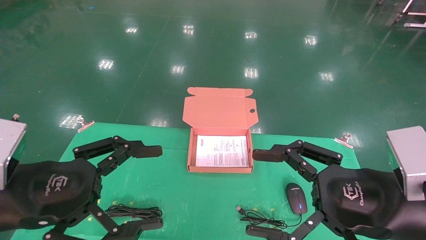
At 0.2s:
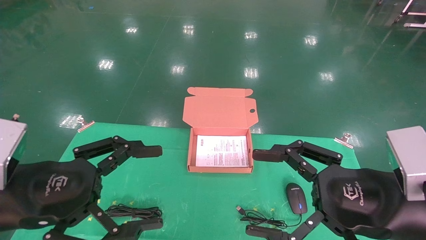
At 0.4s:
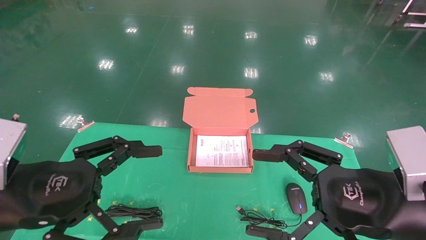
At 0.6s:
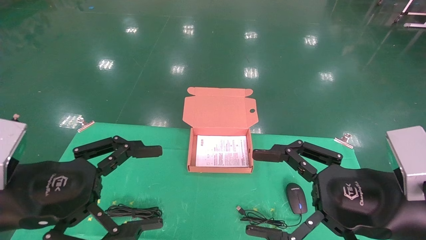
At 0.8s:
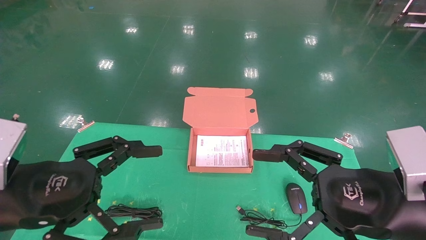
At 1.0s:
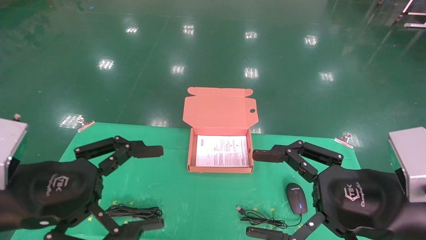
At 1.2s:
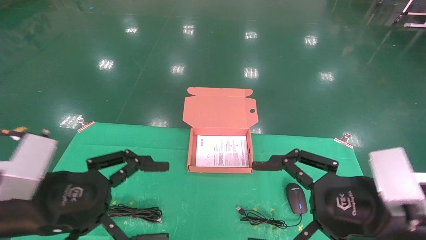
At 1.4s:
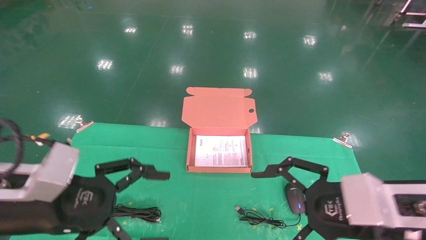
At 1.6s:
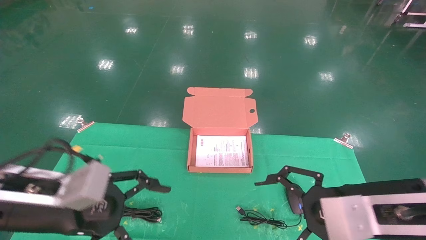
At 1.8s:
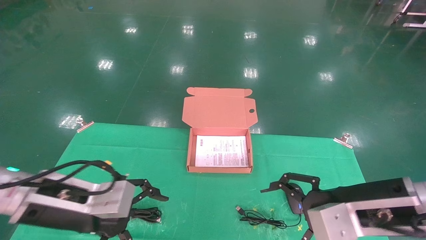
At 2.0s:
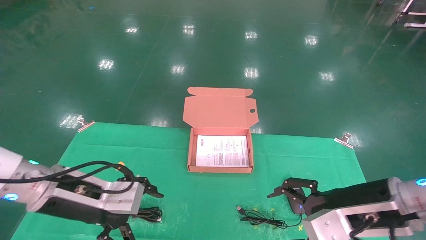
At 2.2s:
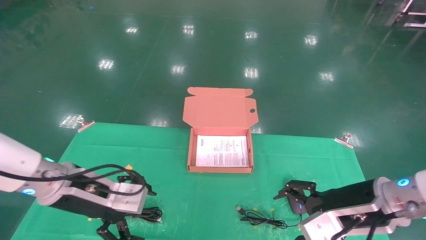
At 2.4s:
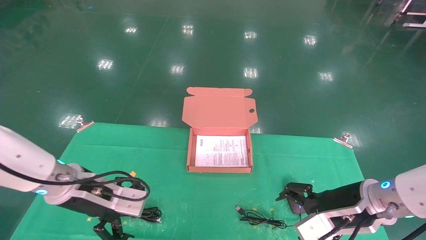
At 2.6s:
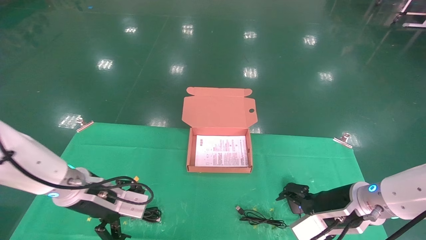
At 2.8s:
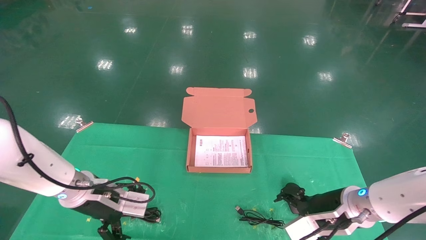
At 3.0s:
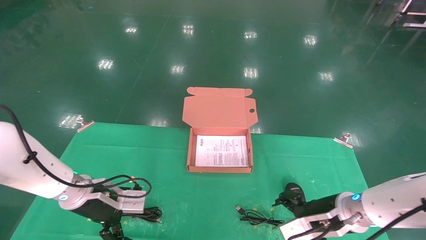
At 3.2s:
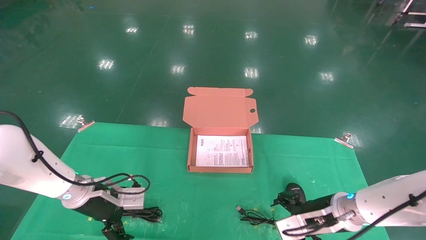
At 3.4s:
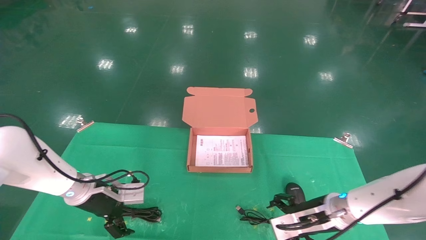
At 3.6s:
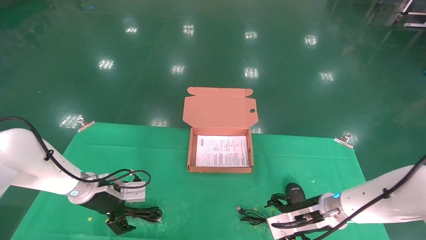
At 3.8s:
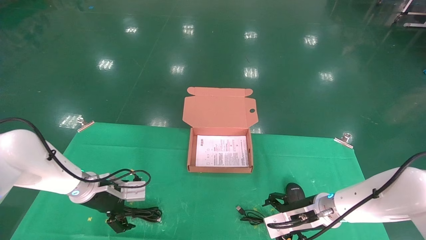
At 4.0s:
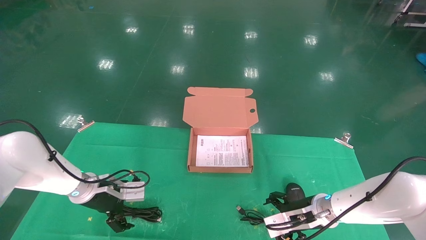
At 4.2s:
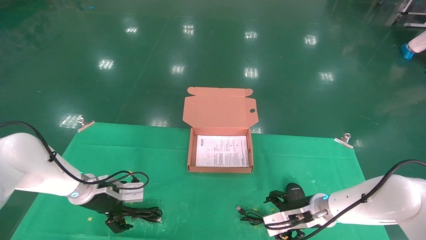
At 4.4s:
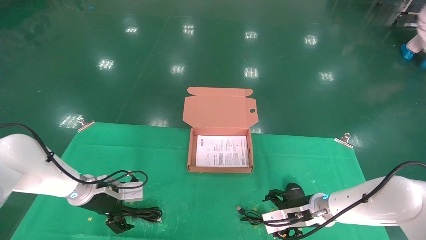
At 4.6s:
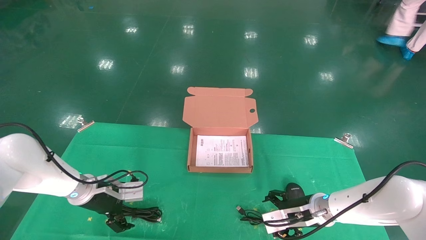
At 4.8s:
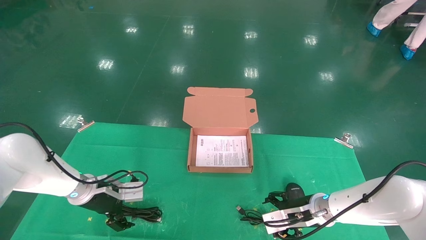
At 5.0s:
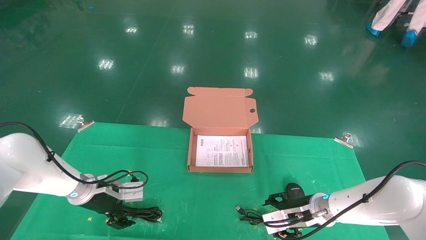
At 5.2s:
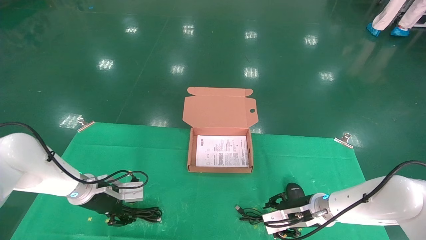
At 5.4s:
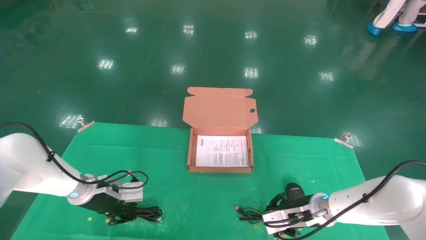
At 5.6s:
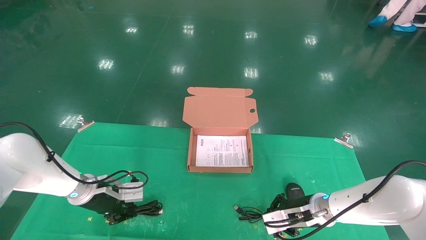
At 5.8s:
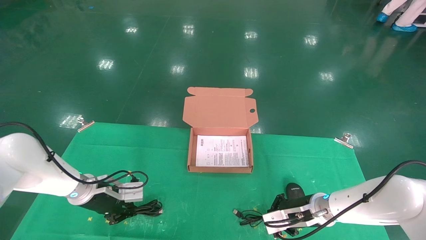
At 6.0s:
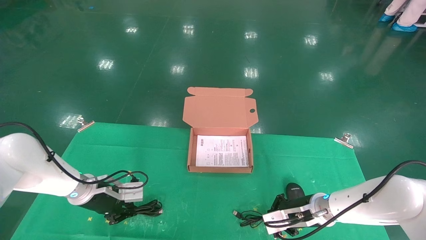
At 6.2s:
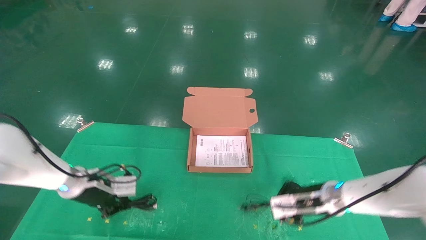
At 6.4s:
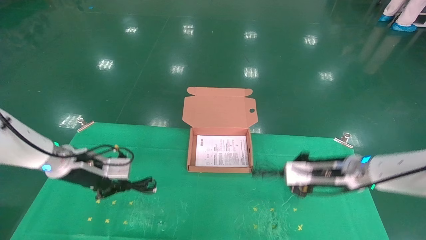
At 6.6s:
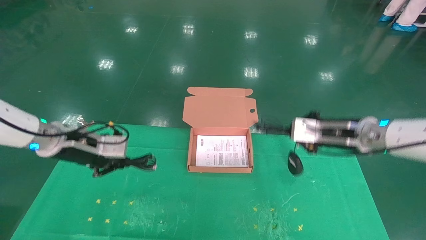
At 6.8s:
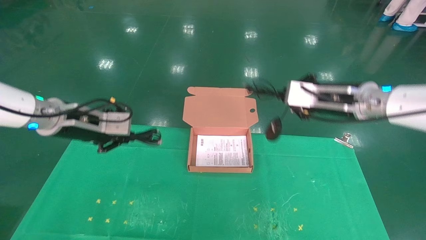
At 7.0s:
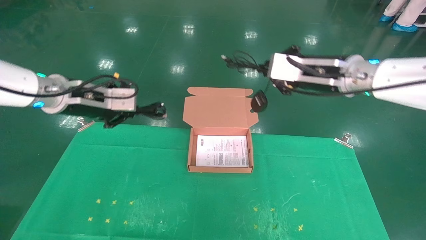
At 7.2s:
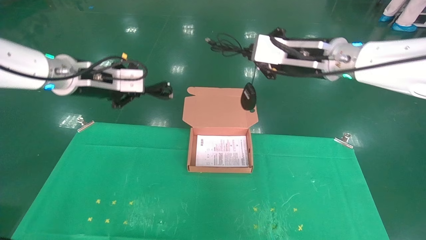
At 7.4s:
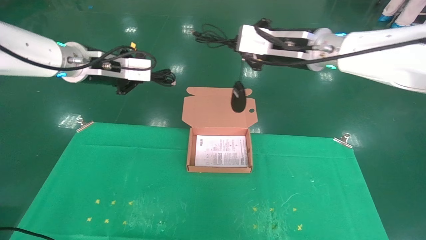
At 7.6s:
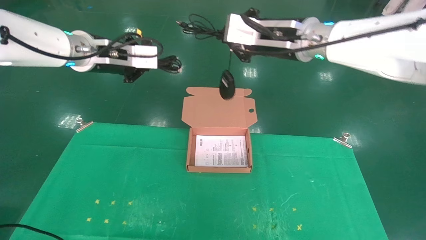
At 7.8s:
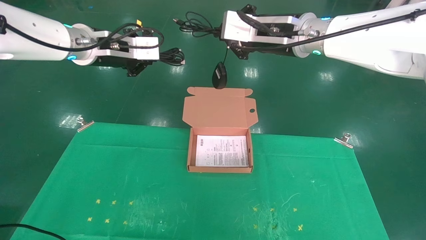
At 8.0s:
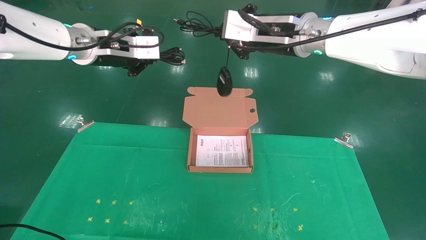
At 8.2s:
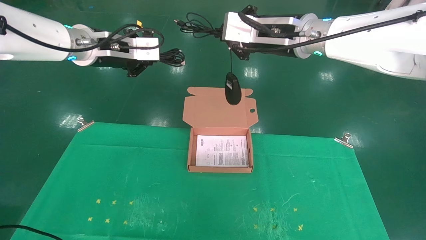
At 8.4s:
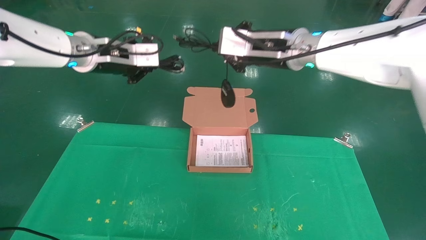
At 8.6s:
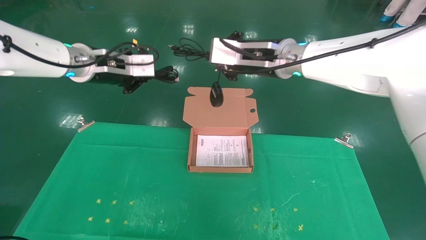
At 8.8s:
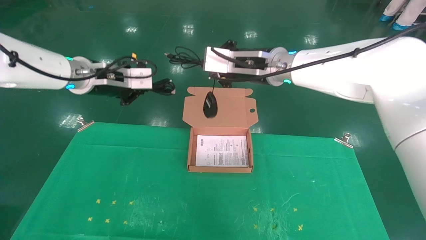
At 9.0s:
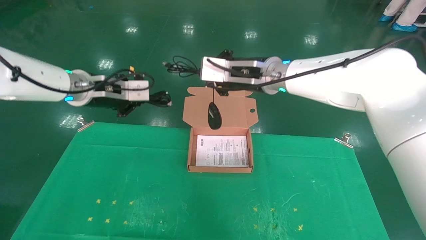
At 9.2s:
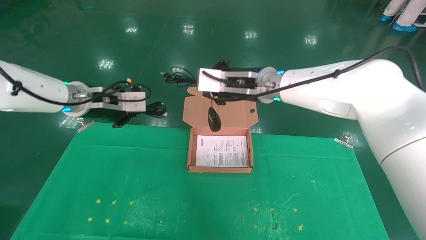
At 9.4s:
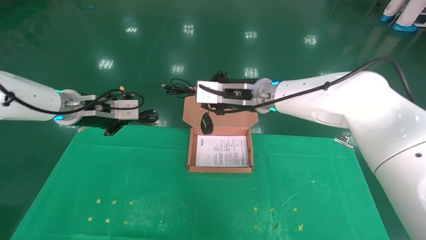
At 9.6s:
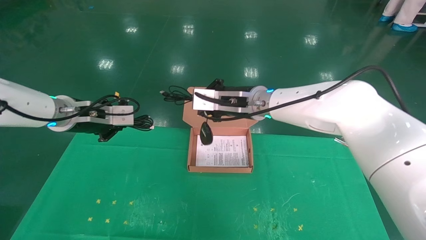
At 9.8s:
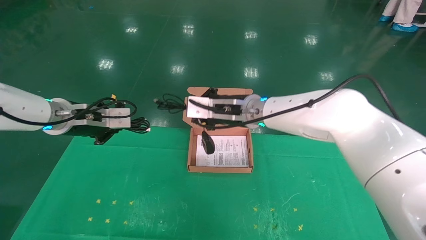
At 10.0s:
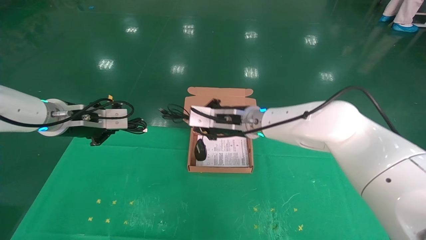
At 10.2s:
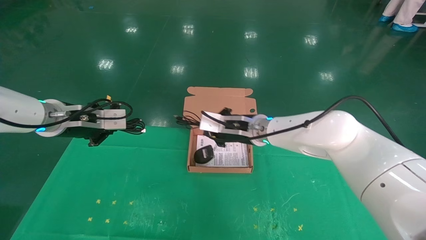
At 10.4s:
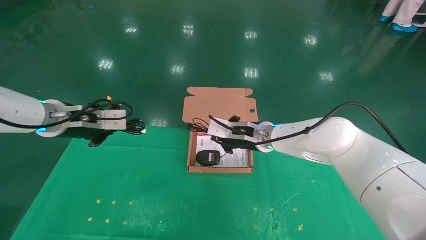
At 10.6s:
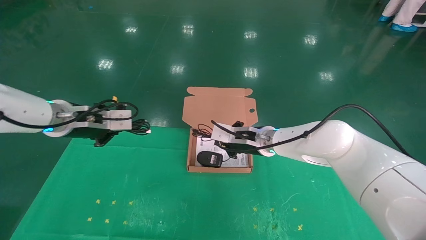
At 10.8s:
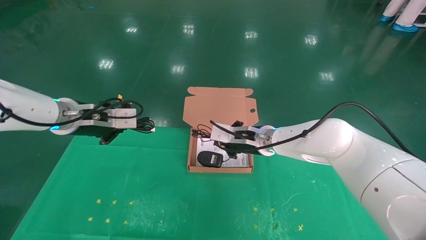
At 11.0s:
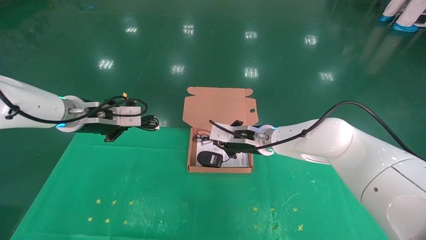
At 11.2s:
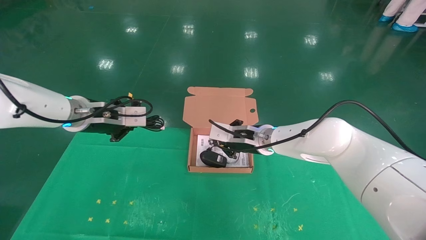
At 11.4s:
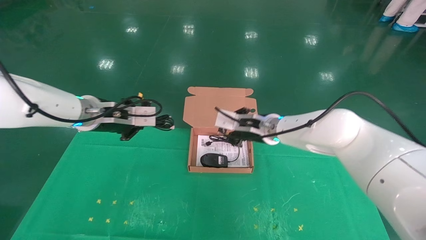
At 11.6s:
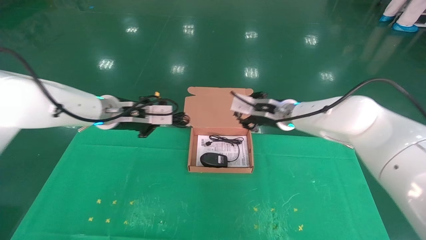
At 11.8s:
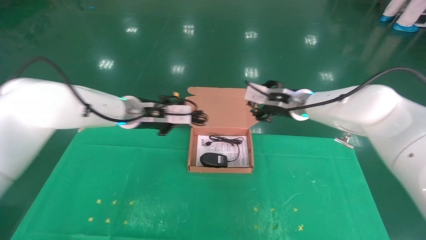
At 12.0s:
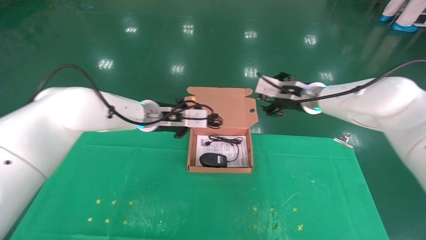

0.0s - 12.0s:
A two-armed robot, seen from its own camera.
Task of the whole recording: grasp data cable left put into box grasp mouse right put into box.
Step, 1.2s - 5.4s: Grab and pick up both the mouse and power cord from the accessory packaging area at the same time.
0.0s - 1.6s: The left gripper changes place by about 5 cm.
1.6s - 3.0s: Both grippers travel together forward and downward, some 15 cm.
3.0s - 4.4s: The right gripper shifts about 10 cm forward and downward, while the left gripper is displaced forward by roughly 5 cm.
4.4s - 6.0s: The left gripper closes its fingers. Meanwhile the right gripper closes up.
6.0s - 7.6s: Both grippers travel together upward, roughly 30 cm.
7.6s - 9.0s: The right gripper goes approximately 10 cm downward and to the left; the left gripper goes approximately 10 cm downward.
9.0s - 10.4s: The right gripper travels downward by about 15 cm; the left gripper changes place by roughly 5 cm.
10.4s - 12.0s: The right gripper moves to the right and upward, some 15 cm, and opens its fingers; the left gripper goes roughly 20 cm to the right and forward.

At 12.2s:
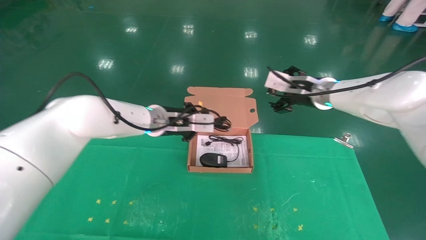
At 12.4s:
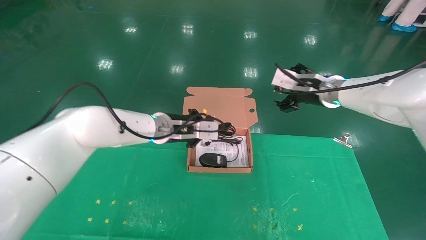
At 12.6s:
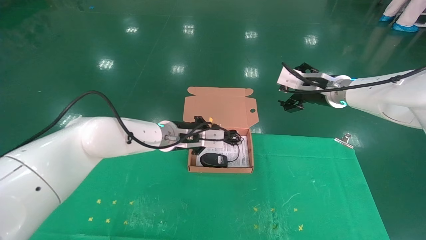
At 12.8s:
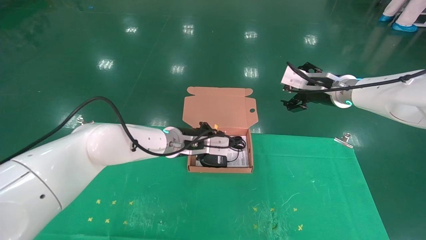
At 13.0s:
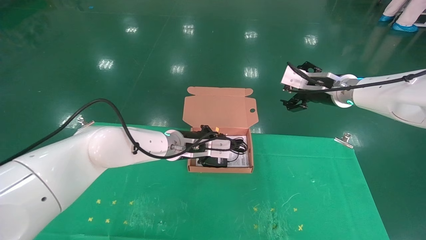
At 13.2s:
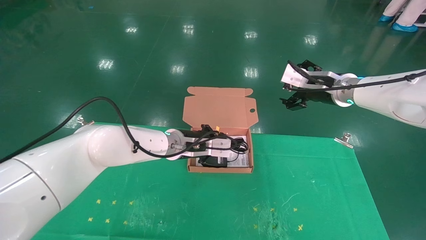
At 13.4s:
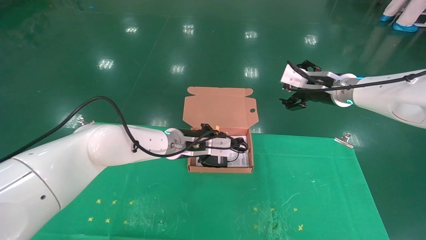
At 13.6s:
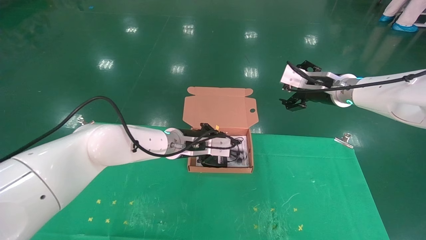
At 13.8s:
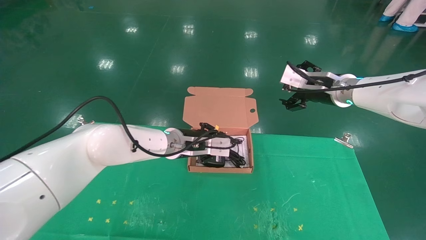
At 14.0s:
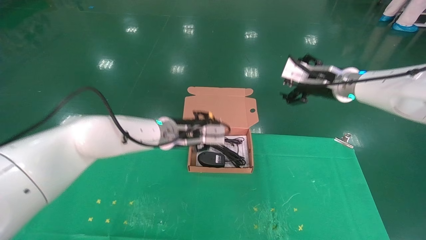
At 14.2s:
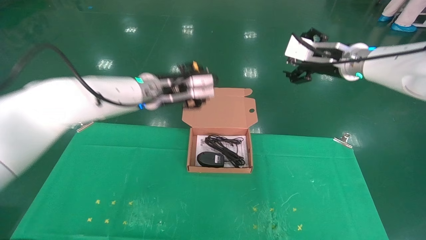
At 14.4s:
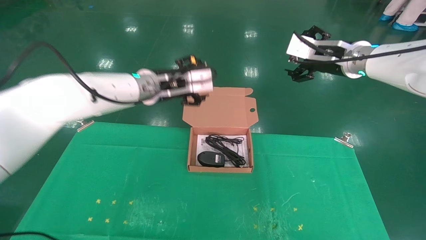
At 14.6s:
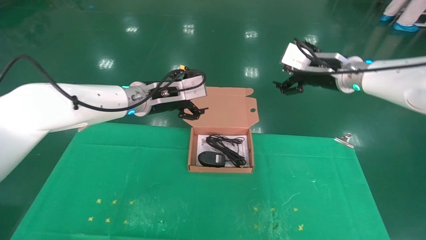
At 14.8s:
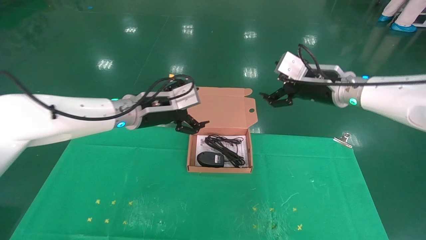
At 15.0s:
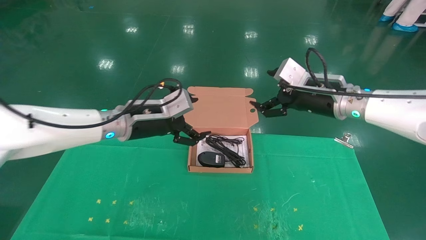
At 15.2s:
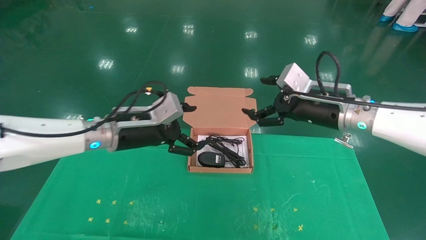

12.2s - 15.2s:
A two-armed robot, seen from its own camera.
Task of the whole recording: grasp data cable left put into box grasp mouse right put into box.
13.8s - 15.2s: The right gripper goes approximately 10 cm backward. The left gripper moves to the left and backward, some 15 cm, and opens up.
